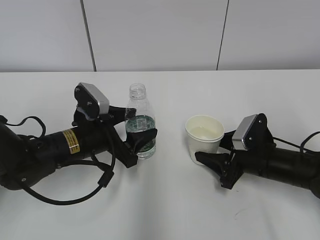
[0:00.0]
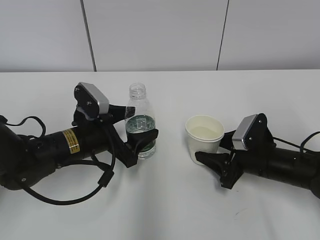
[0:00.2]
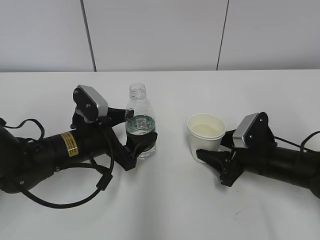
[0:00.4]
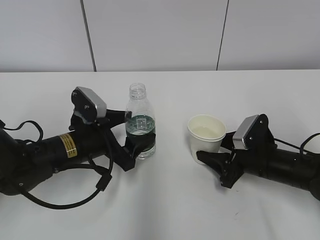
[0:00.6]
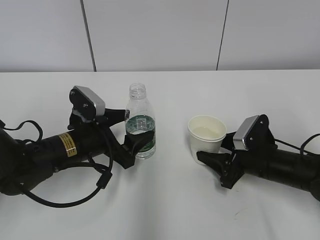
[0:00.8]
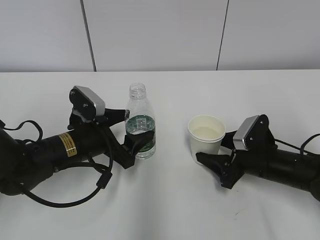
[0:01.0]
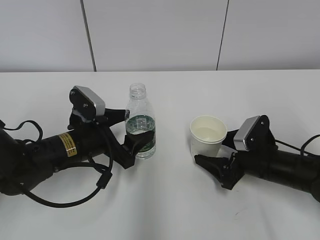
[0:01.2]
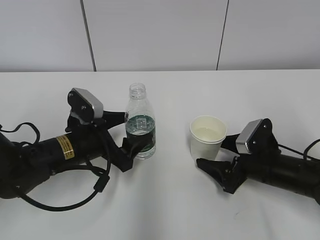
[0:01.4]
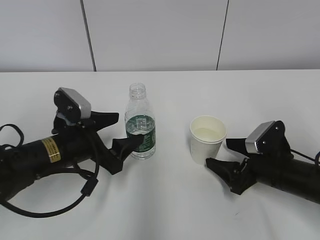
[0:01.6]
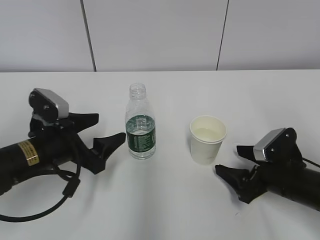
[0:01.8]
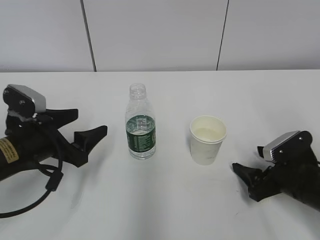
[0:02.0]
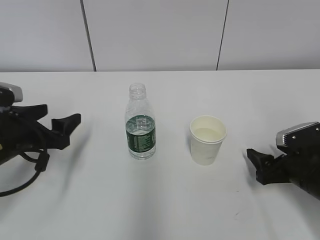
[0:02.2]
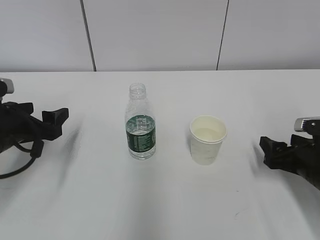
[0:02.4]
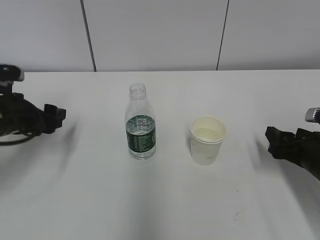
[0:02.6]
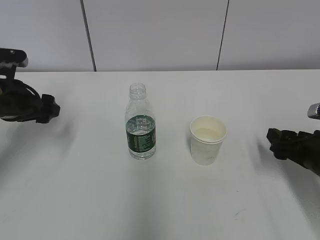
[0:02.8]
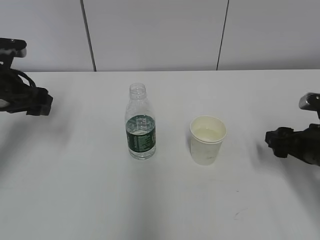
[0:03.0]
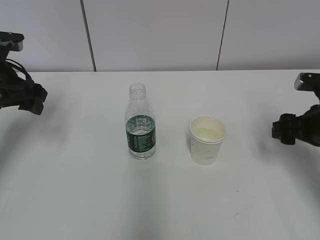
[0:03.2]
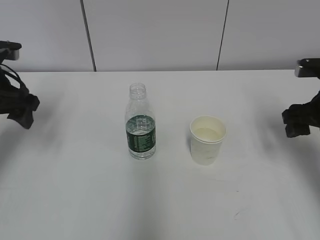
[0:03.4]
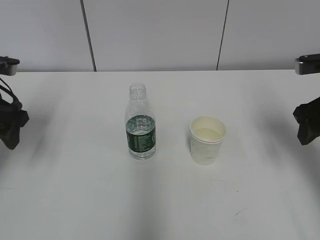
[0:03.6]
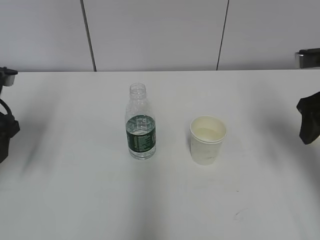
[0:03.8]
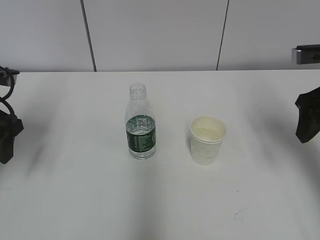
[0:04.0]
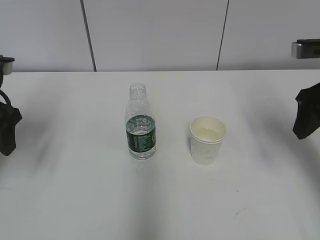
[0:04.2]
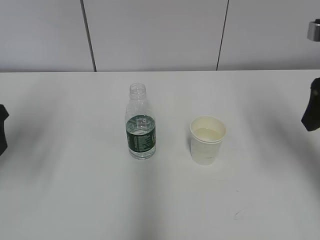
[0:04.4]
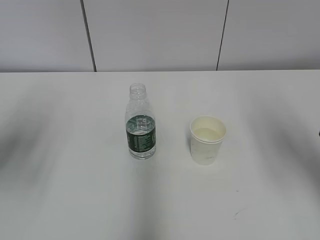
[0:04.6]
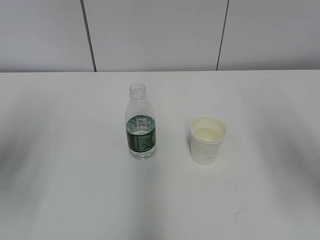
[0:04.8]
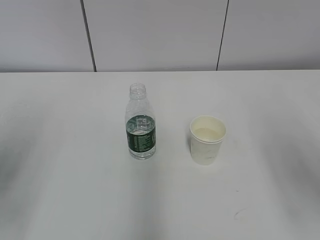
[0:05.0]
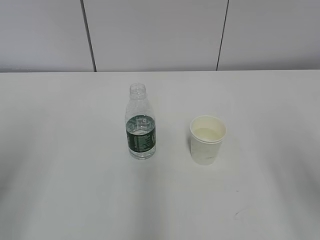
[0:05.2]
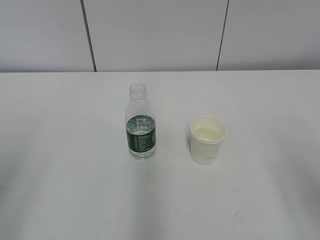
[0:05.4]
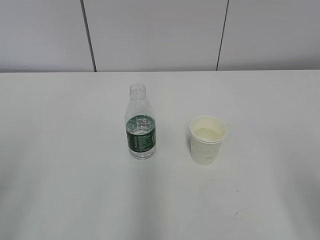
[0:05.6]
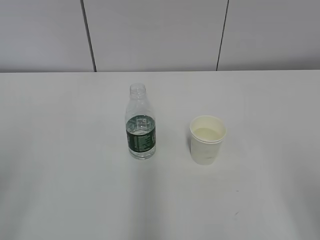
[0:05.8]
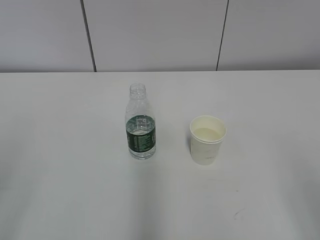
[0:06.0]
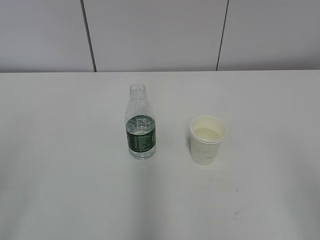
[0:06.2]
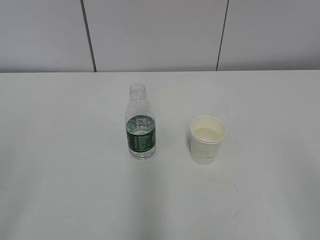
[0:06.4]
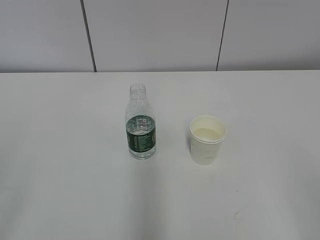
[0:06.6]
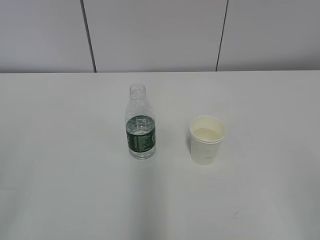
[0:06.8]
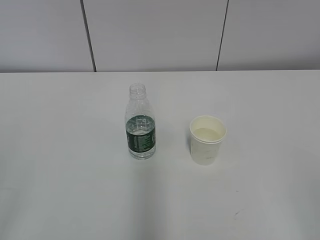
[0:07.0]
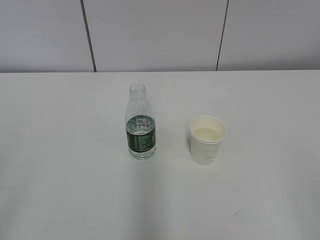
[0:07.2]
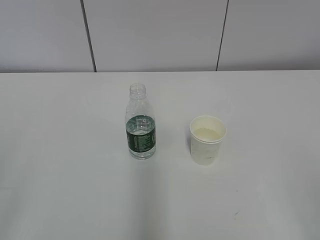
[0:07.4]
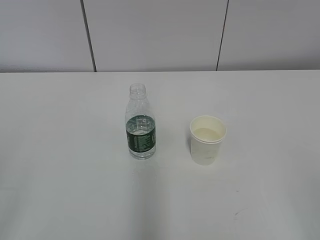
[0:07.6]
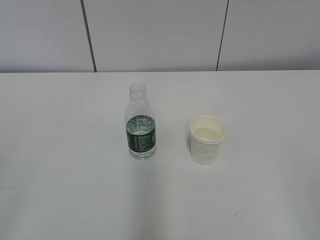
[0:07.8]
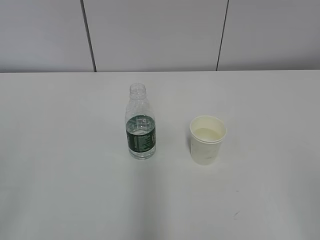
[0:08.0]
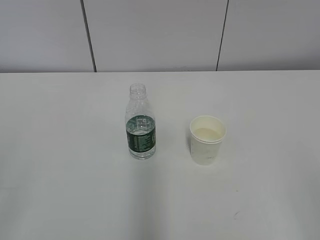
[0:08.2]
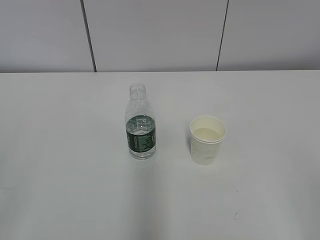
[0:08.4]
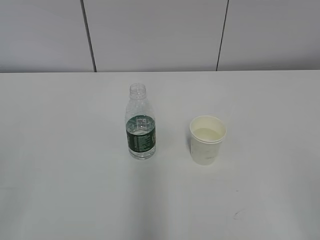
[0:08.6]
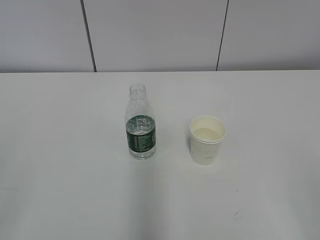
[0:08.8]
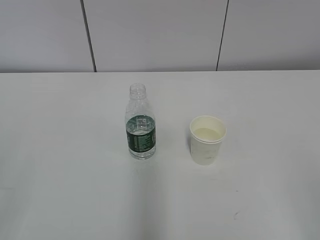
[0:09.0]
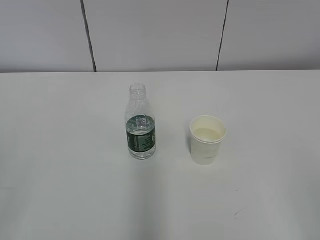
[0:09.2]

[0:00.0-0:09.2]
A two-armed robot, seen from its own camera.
0:00.0 to 0:01.6: The right gripper opens.
0:01.6 to 0:03.0: The left gripper heads to the left, upward and forward, covering some 15 cm. Meanwhile the right gripper heads upward and to the right, covering about 10 cm, and closes its fingers.
0:03.0 to 0:04.6: The right gripper shifts some 20 cm upward, while the left gripper shifts roughly 15 cm backward and upward.
0:04.6 to 0:06.2: The grippers both shift backward by about 20 cm.

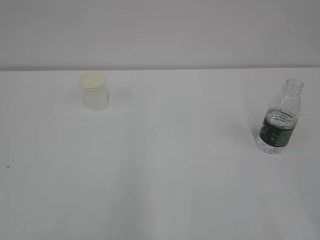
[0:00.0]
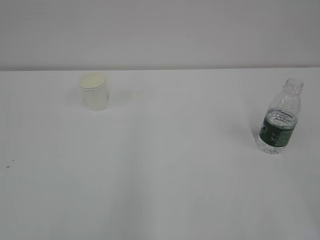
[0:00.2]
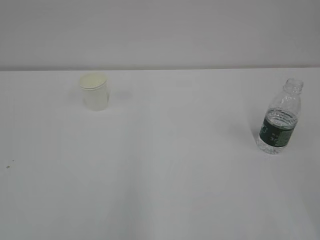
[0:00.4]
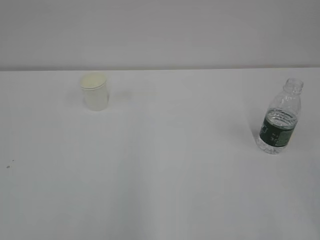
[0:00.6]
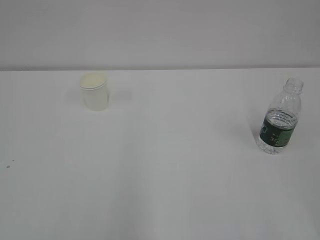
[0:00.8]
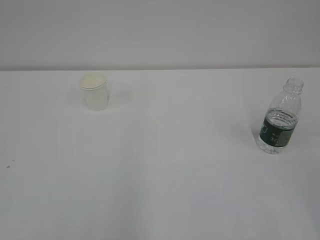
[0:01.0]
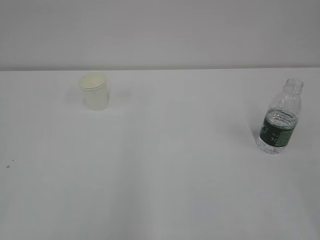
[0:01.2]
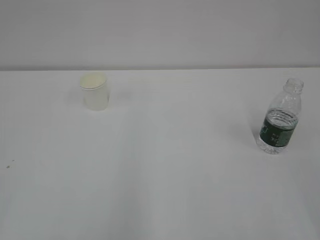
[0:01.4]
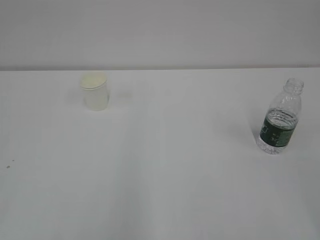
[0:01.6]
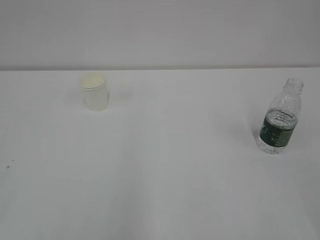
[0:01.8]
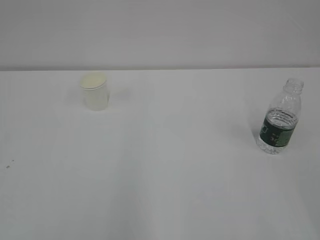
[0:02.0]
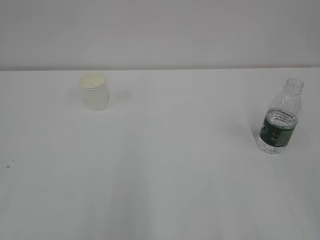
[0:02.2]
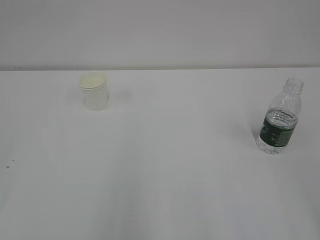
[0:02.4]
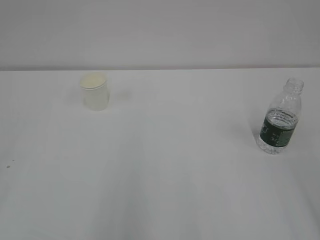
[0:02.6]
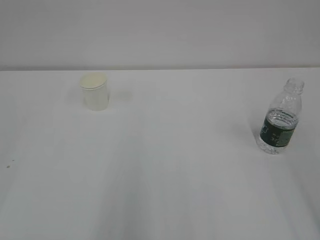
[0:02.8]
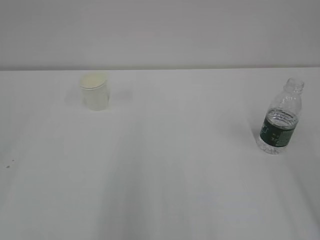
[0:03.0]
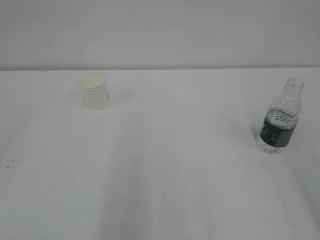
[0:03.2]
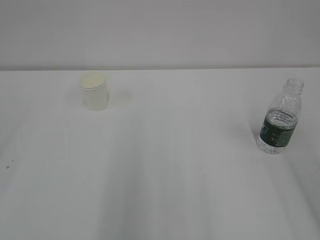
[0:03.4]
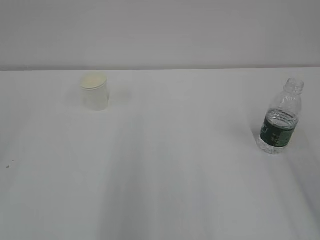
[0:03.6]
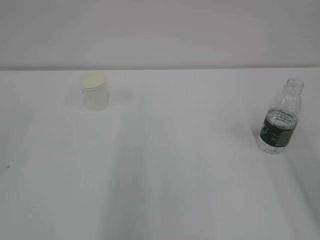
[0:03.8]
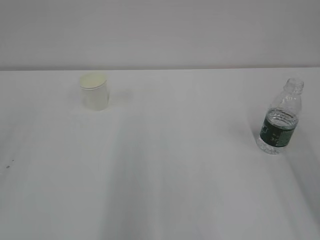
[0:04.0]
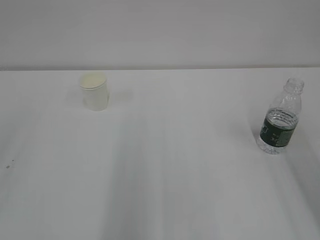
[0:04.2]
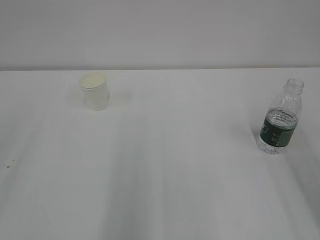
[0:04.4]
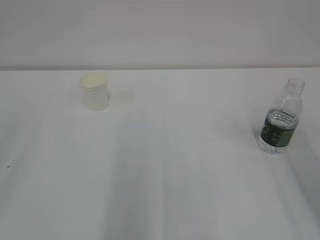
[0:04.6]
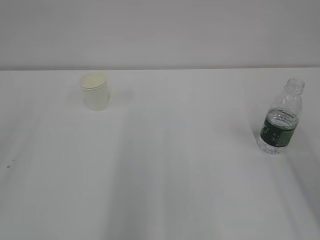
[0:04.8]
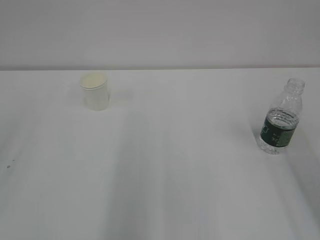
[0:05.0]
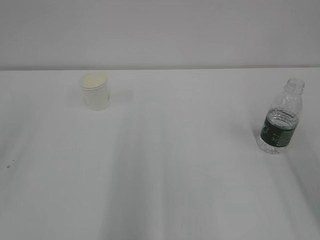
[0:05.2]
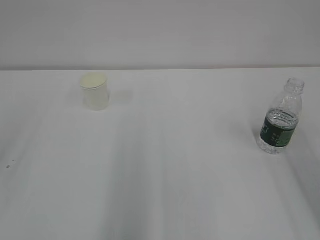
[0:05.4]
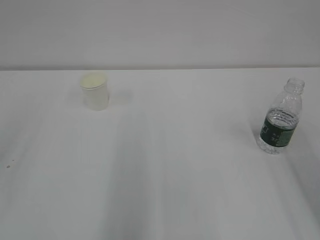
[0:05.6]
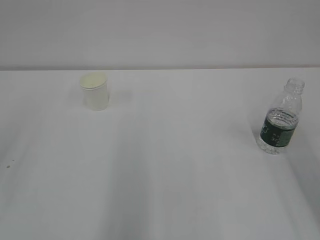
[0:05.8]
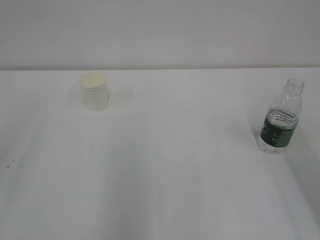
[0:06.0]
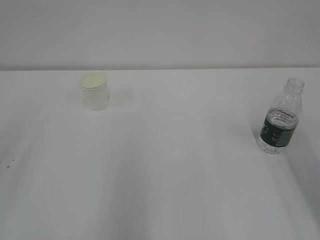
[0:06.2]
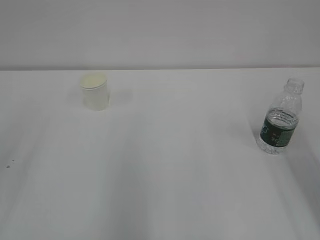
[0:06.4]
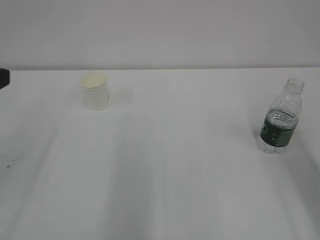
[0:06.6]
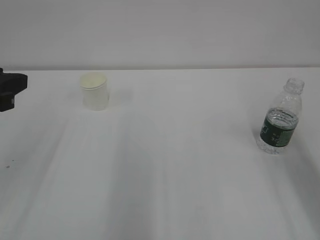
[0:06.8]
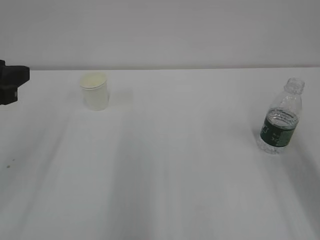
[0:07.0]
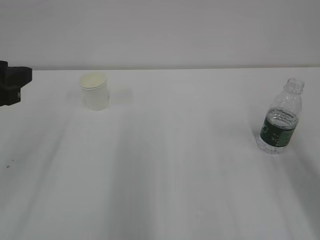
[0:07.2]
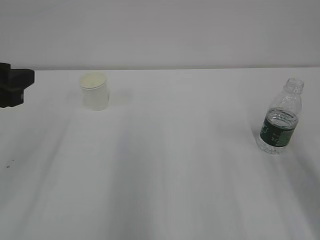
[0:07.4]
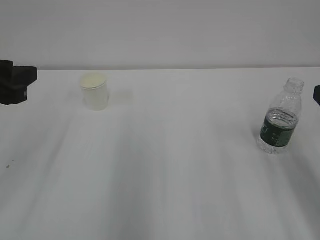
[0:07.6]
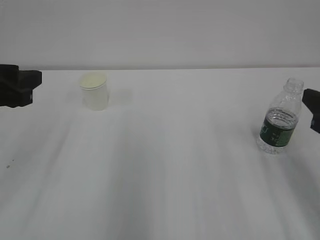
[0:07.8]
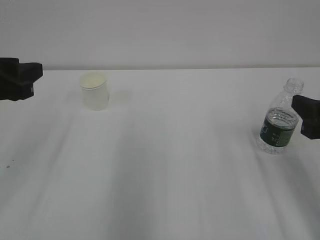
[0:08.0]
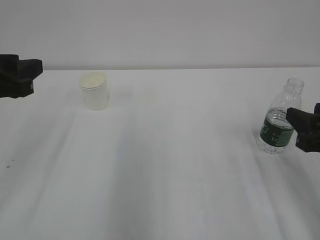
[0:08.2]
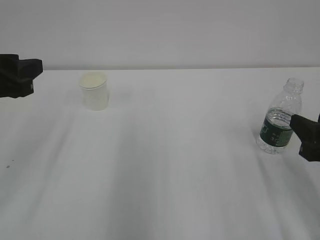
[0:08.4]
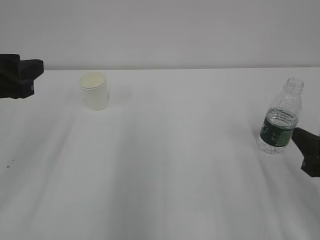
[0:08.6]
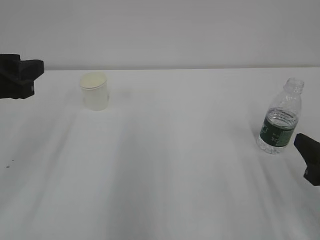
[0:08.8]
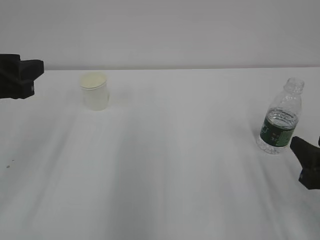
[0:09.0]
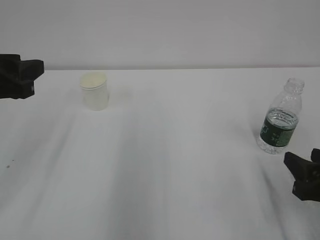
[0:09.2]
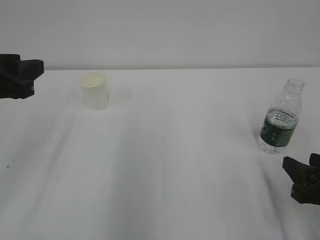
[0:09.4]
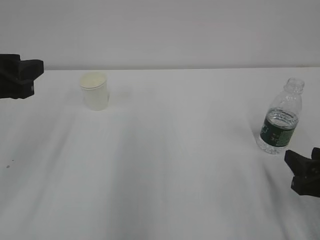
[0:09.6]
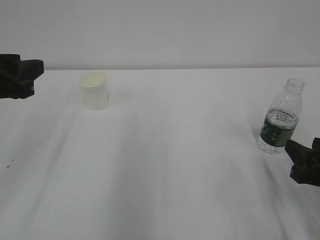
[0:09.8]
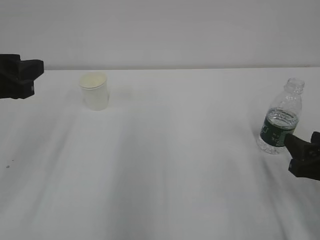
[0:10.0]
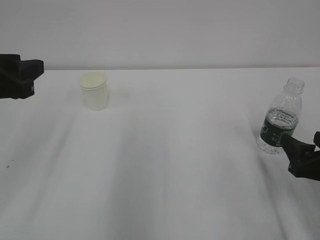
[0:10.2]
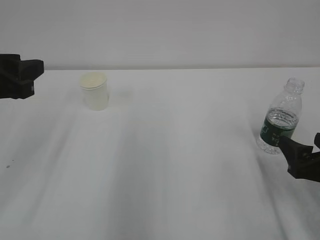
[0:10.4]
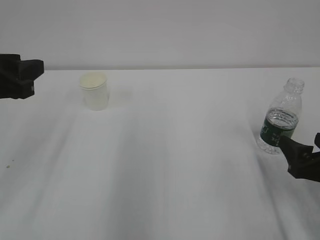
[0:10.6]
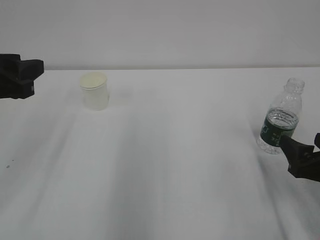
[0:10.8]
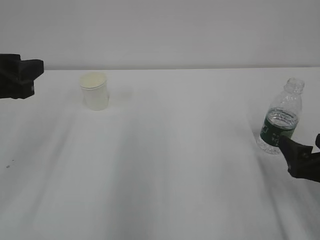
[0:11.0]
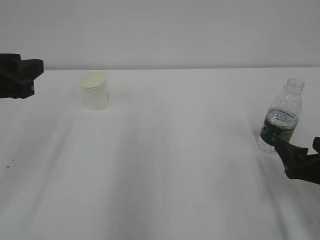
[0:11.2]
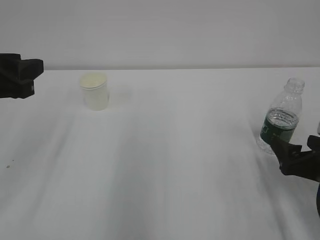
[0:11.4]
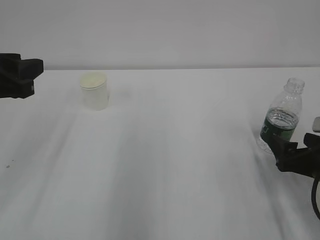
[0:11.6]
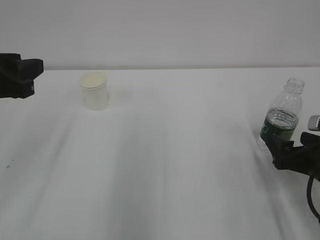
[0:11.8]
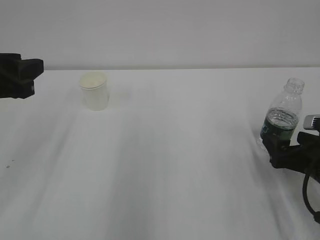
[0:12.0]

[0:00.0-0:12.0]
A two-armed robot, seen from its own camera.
0:06.0 to 0:07.6: The left gripper heads forward, covering roughly 5 cm.
0:07.6 to 0:09.0: The right gripper is displaced downward by some 10 cm.
0:09.0 to 0:10.4: The right gripper opens up.
0:10.4 to 0:12.0: The right gripper moves about 5 cm.

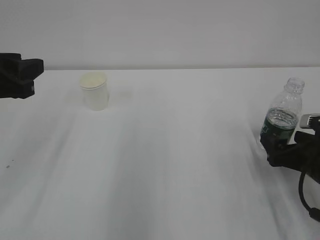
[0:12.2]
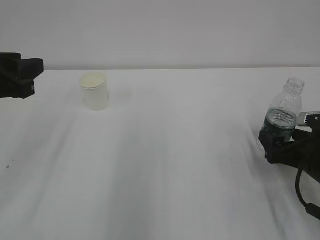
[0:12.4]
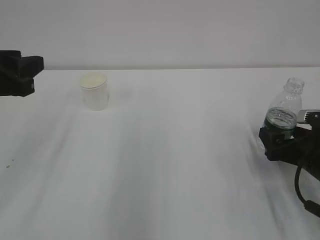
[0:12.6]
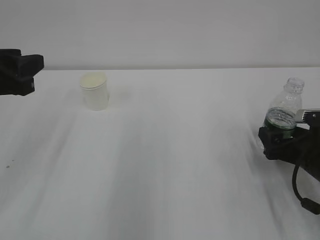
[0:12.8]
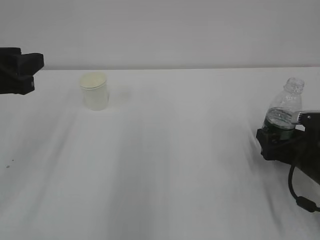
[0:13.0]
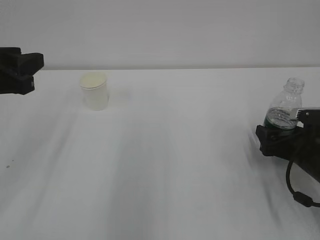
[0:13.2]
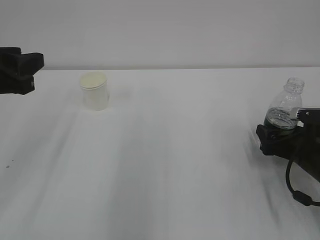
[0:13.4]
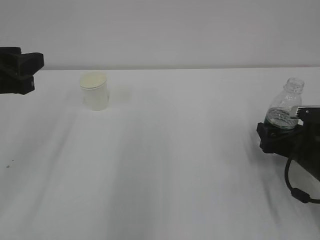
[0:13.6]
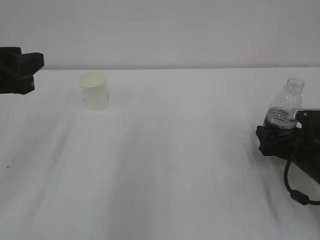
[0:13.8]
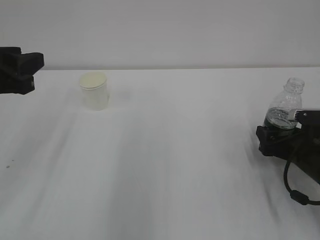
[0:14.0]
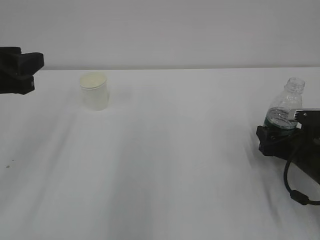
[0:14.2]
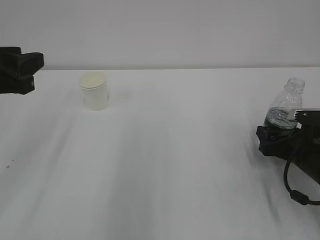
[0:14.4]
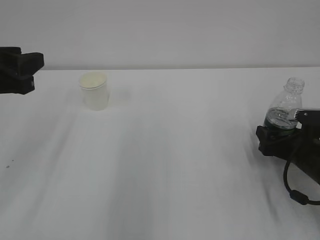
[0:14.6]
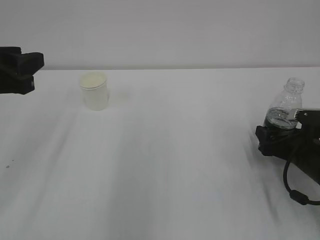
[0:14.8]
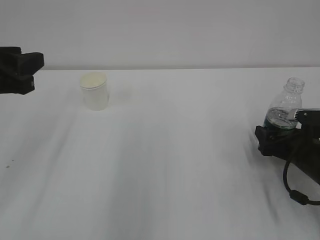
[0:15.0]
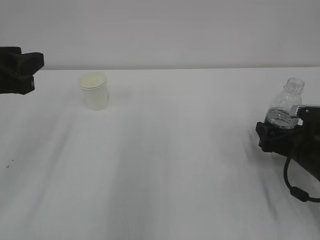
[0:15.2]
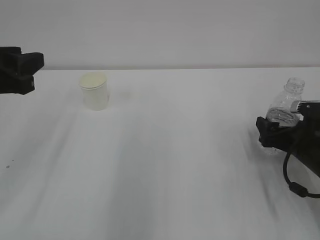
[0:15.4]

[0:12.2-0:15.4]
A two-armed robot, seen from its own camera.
0:12.2 to 0:13.8: The grippers make only small movements.
0:13.8 to 0:15.4: Neither gripper changes place.
